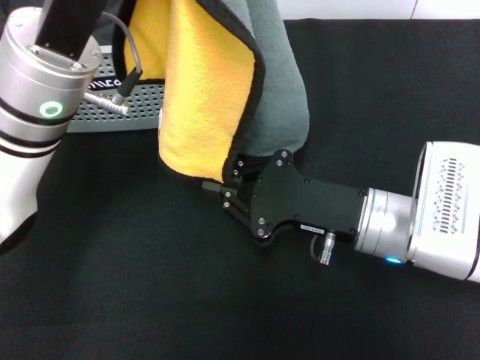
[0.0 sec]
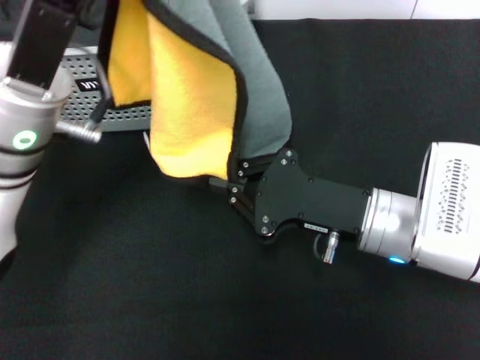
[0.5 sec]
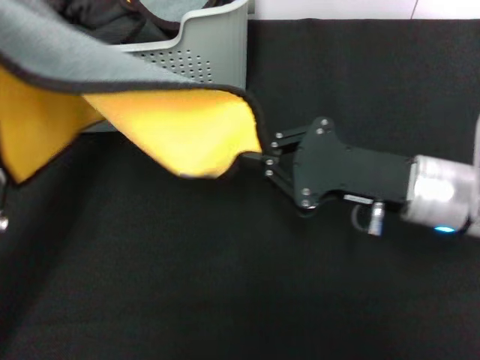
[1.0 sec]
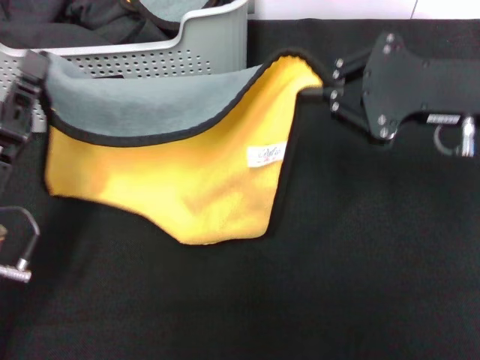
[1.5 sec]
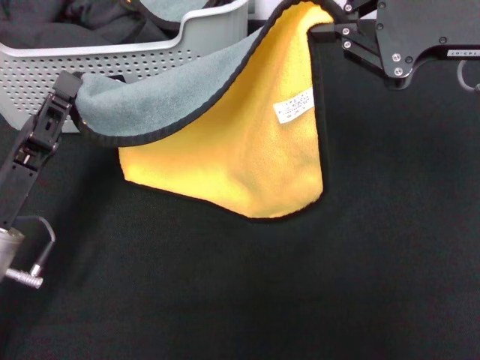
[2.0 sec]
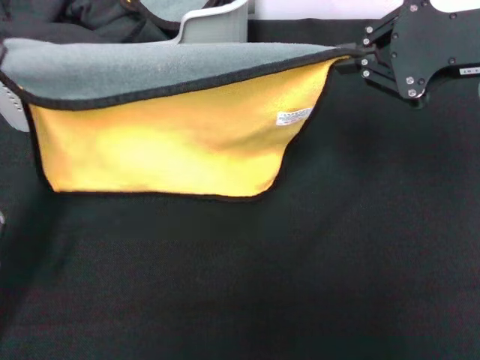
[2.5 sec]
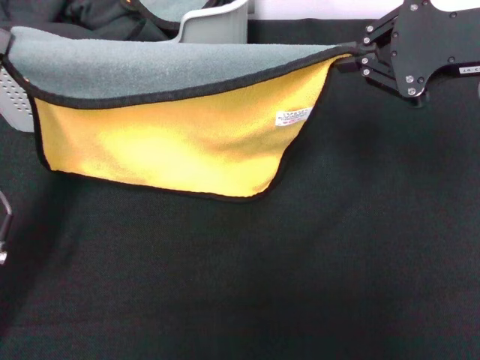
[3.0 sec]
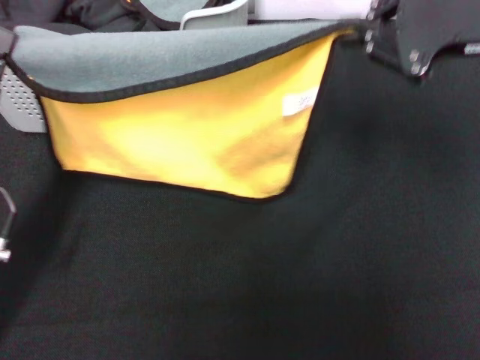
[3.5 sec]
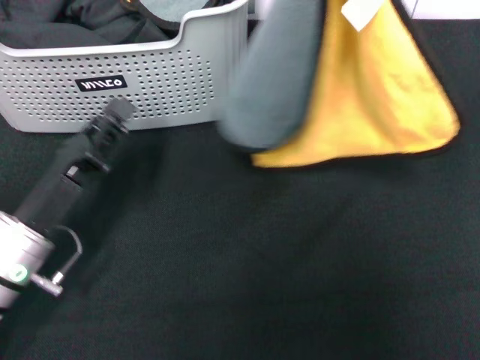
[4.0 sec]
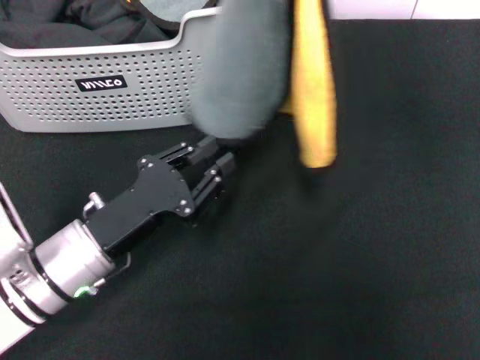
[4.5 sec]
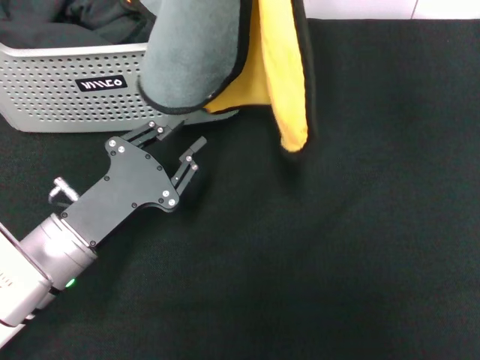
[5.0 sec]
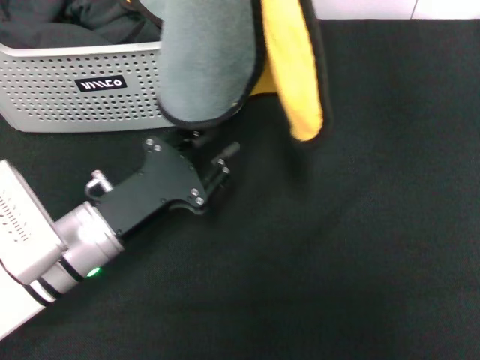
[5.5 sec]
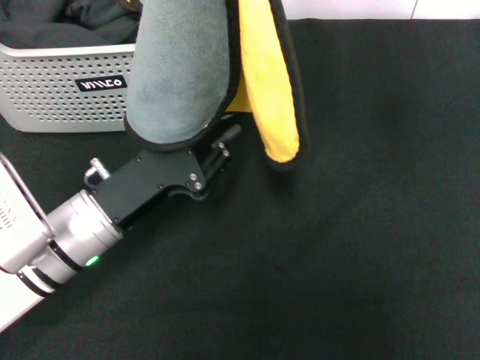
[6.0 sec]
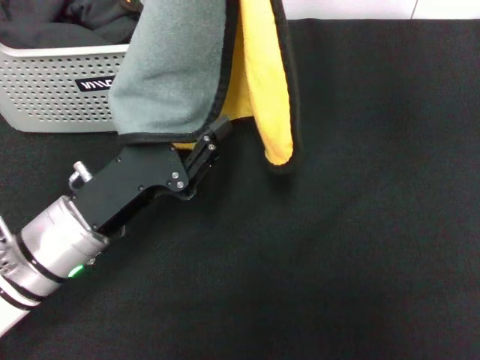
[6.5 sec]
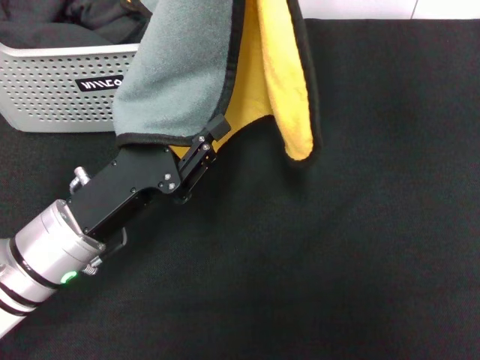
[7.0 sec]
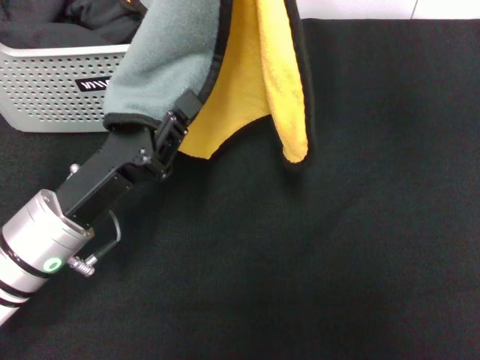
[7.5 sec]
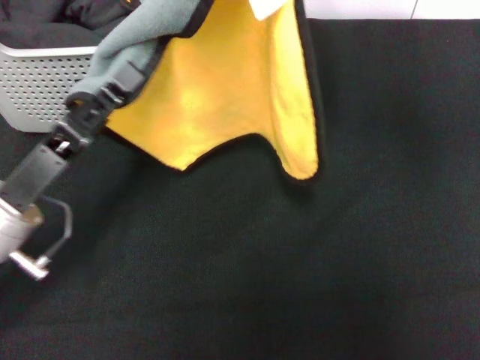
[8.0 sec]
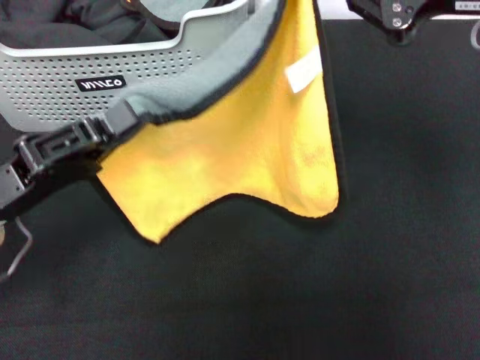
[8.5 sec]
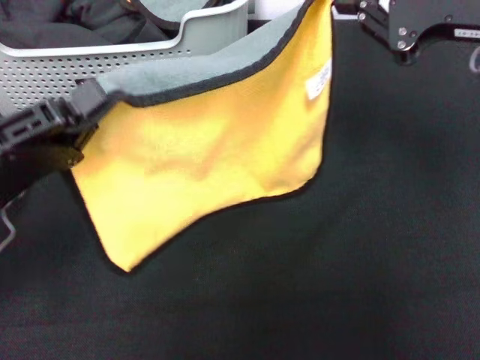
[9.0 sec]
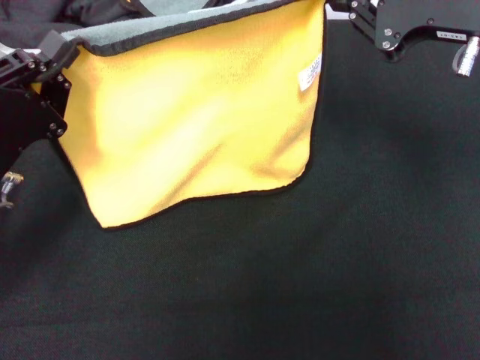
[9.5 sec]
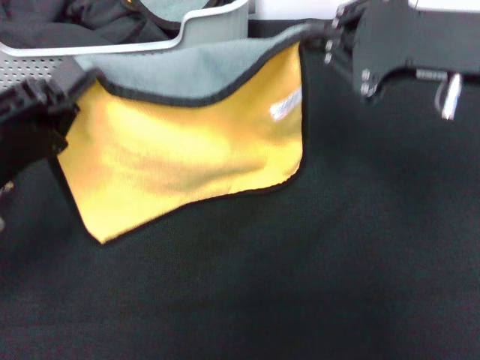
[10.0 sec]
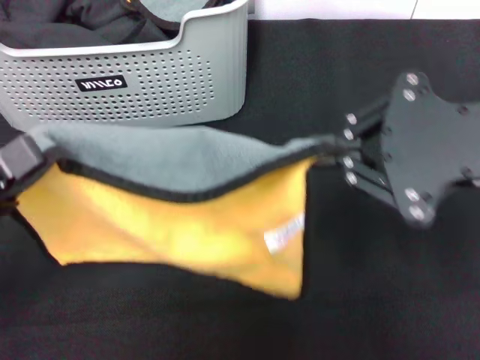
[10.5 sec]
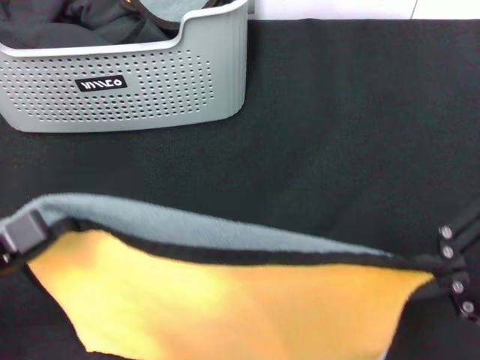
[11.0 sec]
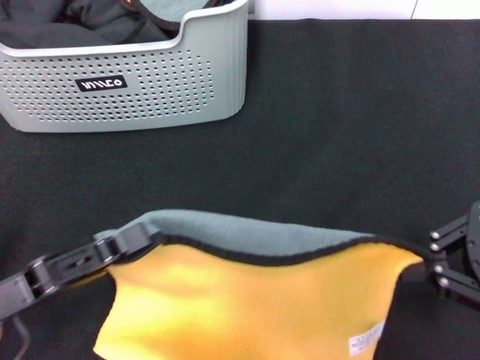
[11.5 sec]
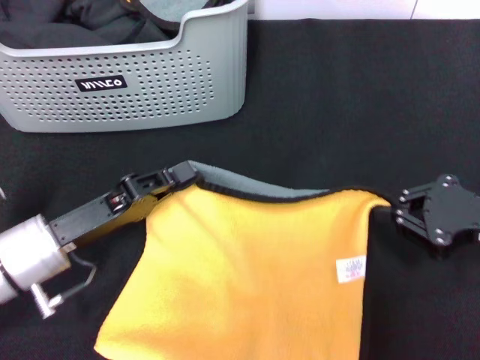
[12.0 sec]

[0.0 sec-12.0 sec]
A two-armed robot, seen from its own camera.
Task of the whole recording: pick up the towel from the storage box and lay it flat on the black tablecloth.
0.0 sec to 2.0 sec: The left gripper is displaced downward, backward and to the left by about 20 cm; the right gripper shifts roughly 20 cm upward and to the right.
2.0 sec to 4.0 sec: The right gripper moves upward, roughly 10 cm.
4.0 sec to 6.0 sec: The right gripper heads to the left, covering approximately 5 cm. Meanwhile the left gripper moves to the right, roughly 5 cm.
6.0 sec to 8.0 sec: The right gripper moves approximately 5 cm; the left gripper ends up roughly 5 cm from where it was.
8.0 sec to 10.0 sec: The right gripper moves downward, roughly 10 cm.
10.0 sec to 12.0 sec: The left gripper shifts some 5 cm downward, and travels backward and back again, roughly 10 cm each way. The right gripper goes approximately 15 cm downward and to the right.

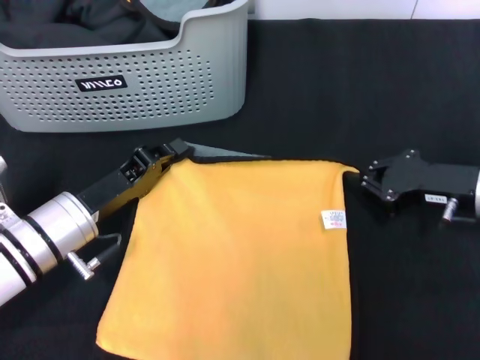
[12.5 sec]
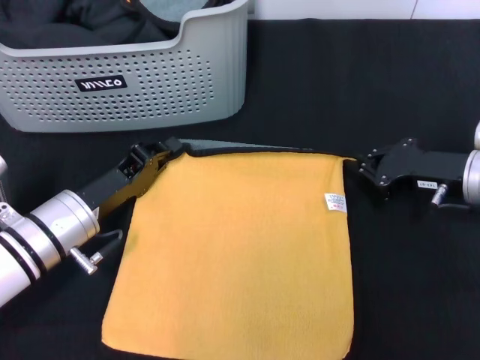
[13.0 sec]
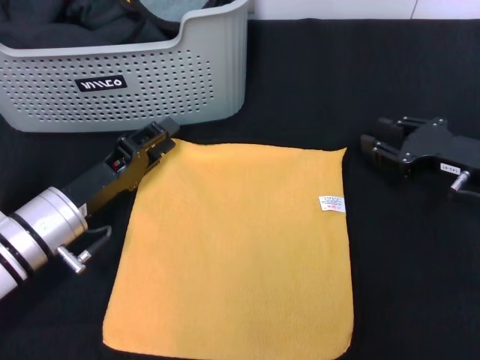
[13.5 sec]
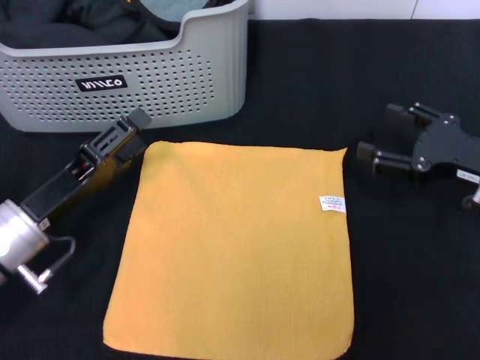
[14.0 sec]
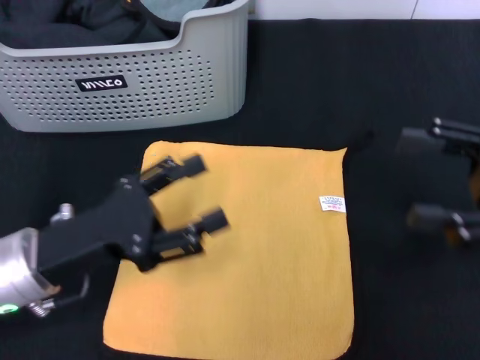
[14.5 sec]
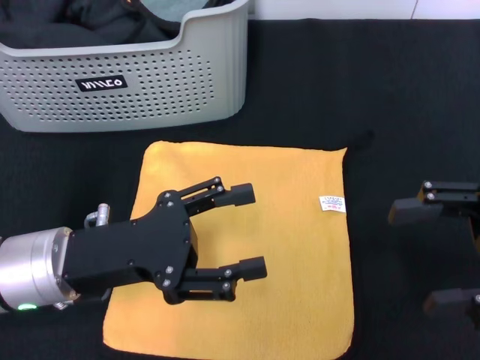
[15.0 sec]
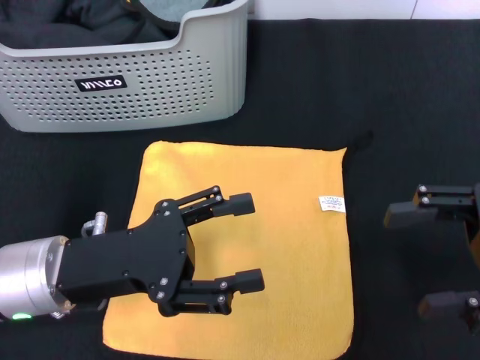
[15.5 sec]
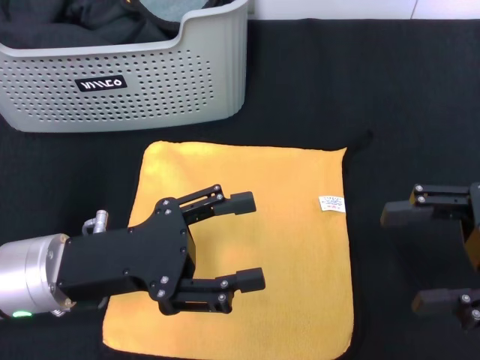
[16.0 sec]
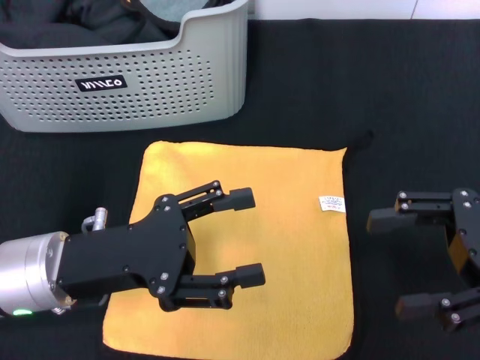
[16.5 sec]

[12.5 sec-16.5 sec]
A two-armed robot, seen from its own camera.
Task of the whole recording: pick up the towel from the storage box and lay it flat on the black tablecloth.
12.5 sec to 14.5 sec: The right gripper travels upward and backward by some 10 cm, and opens up. The left gripper heads backward and upward, covering about 10 cm, and opens up.
14.5 sec to 16.5 sec: The grippers move only a little.
